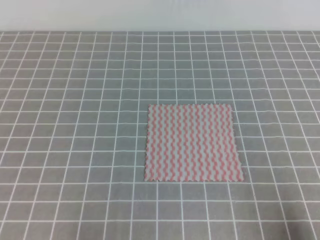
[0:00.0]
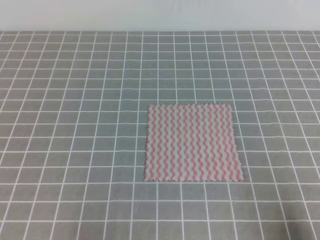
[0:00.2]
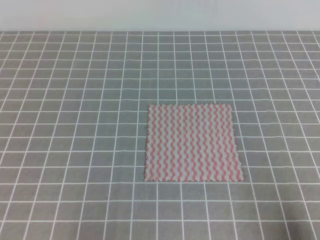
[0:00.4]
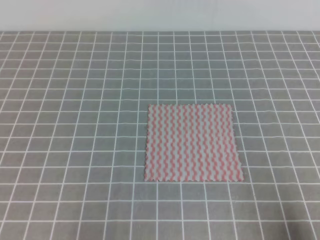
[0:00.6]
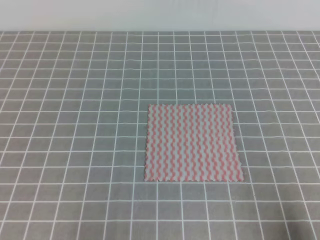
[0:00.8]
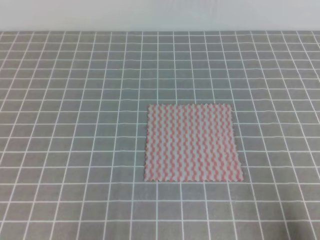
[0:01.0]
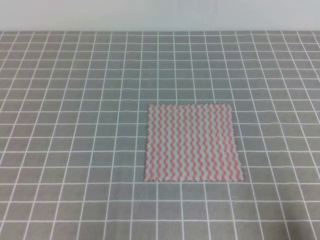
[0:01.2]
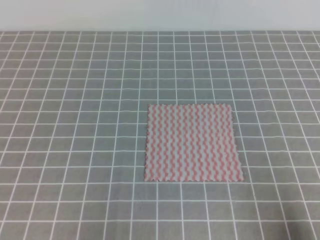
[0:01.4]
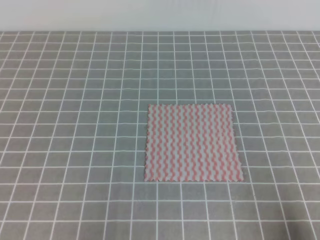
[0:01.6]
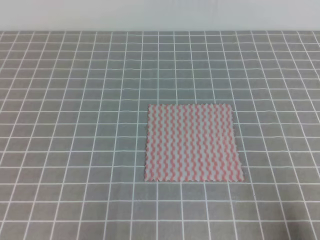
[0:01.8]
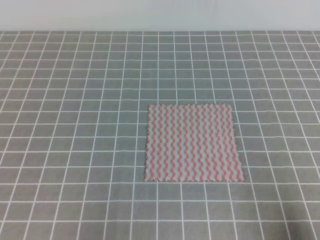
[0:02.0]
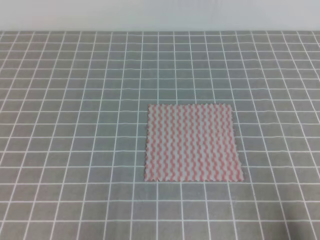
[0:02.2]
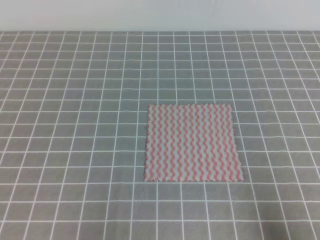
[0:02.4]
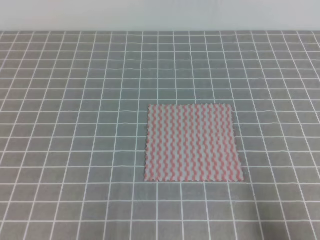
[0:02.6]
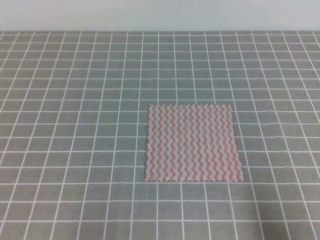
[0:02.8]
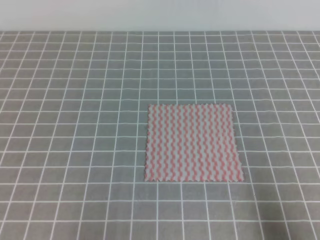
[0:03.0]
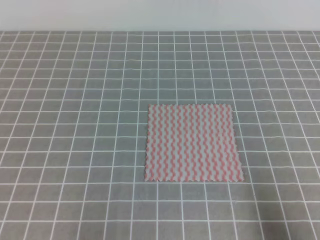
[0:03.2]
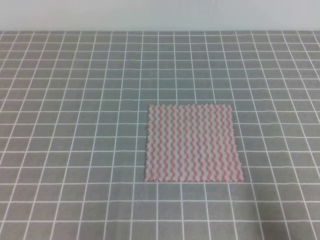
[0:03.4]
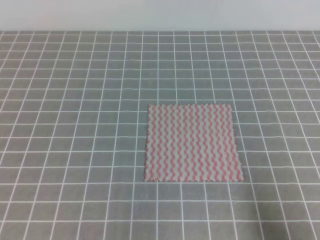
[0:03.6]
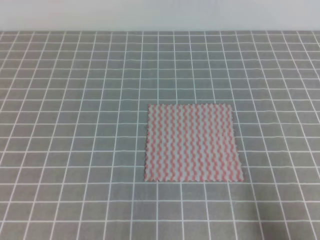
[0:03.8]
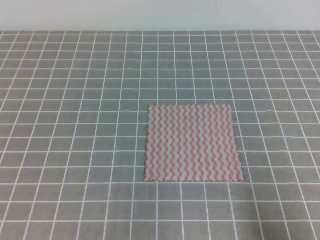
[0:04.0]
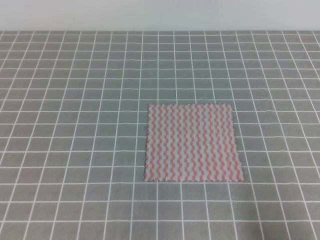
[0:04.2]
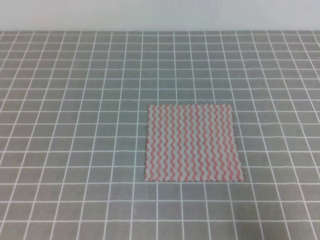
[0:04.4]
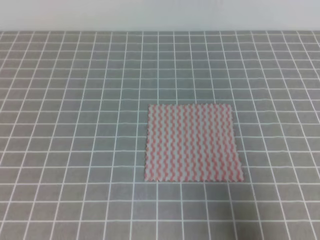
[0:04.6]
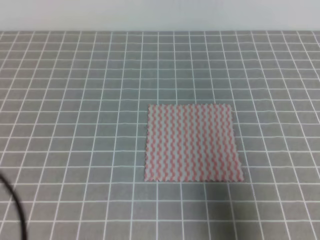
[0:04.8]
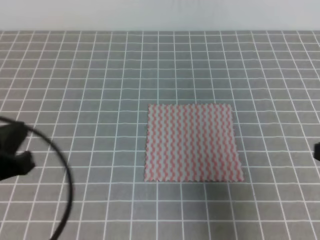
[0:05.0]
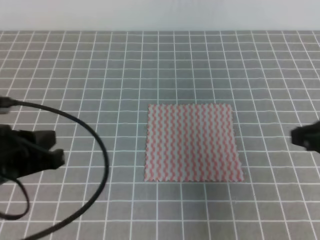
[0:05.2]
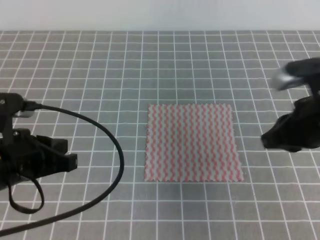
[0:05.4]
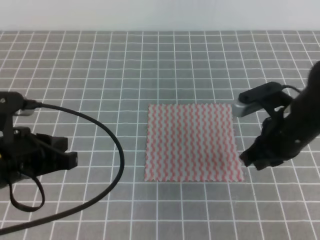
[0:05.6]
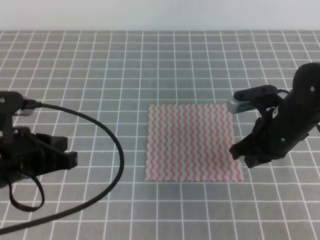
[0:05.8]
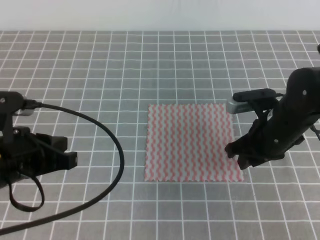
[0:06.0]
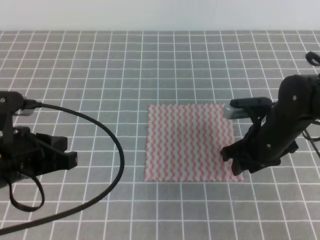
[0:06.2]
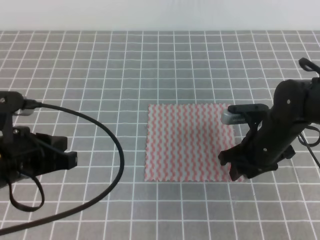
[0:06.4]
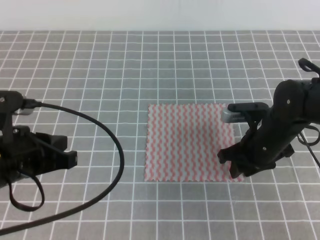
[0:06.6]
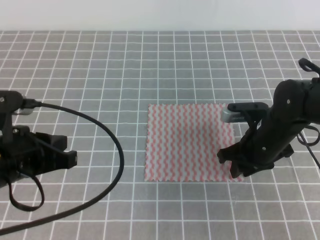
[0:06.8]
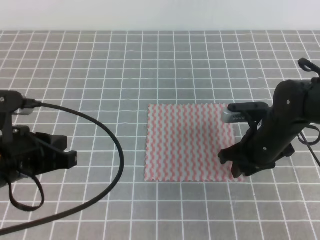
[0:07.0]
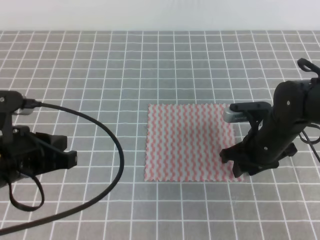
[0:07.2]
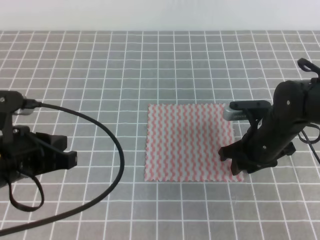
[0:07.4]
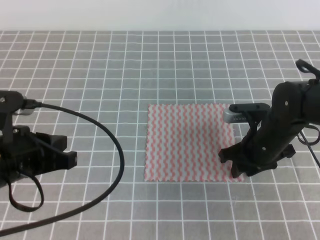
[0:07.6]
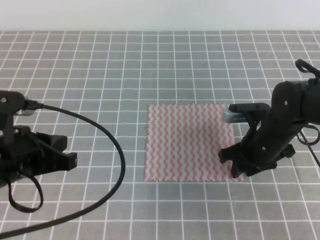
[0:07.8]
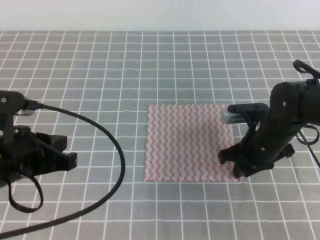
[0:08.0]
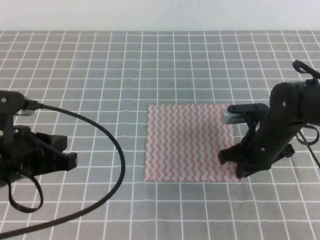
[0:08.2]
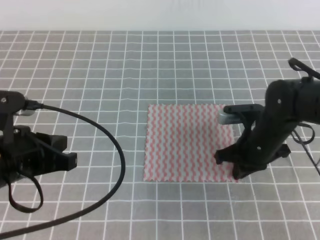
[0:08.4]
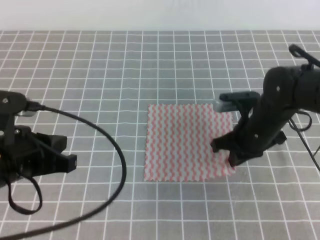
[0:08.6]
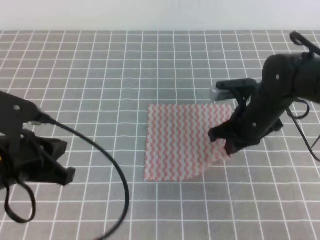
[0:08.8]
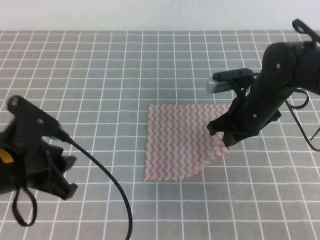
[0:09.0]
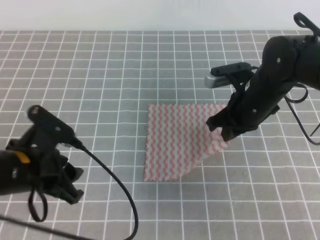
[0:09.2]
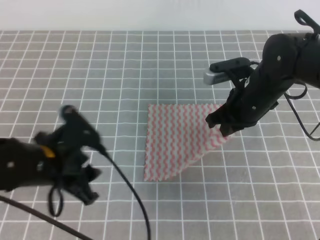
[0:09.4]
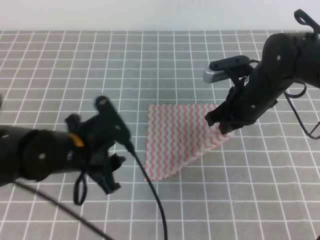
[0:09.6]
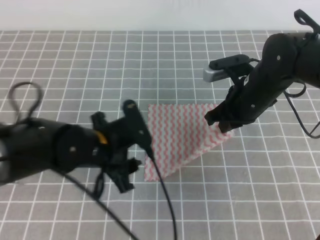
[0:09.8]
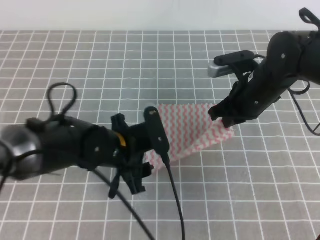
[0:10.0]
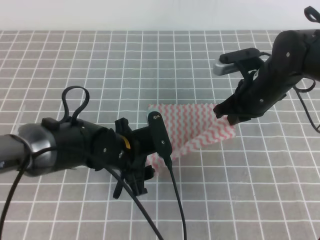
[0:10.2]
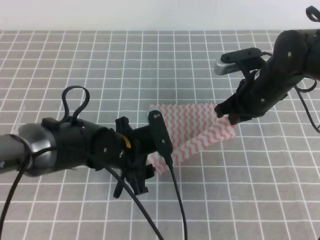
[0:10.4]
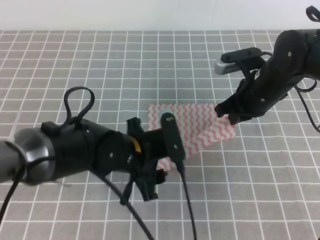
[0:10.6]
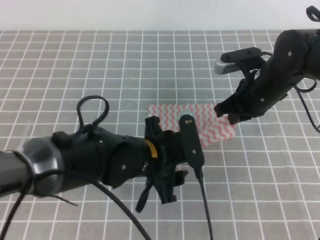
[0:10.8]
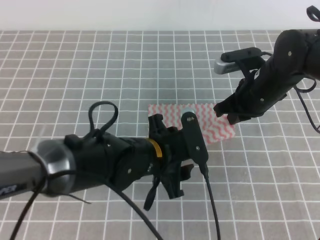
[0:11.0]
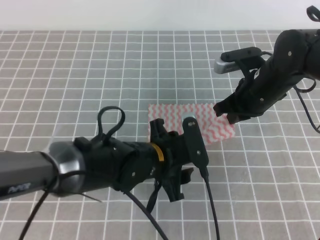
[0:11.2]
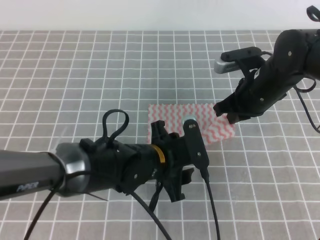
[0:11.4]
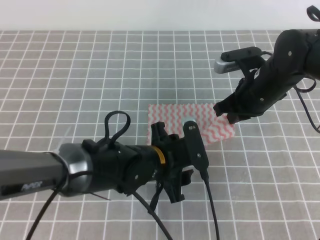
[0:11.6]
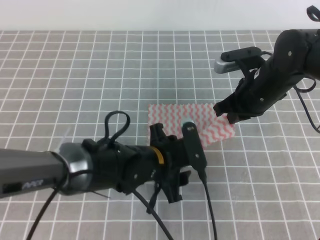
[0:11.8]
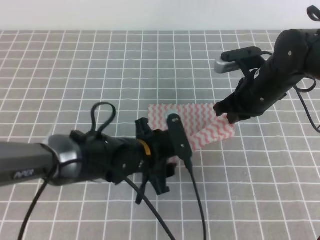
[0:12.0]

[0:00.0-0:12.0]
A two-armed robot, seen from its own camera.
0:04.4 to 0:06.0: The right gripper heads forward and to the left, covering some 25 cm, and opens its fingers. Meanwhile the left gripper moves forward and to the right, approximately 15 cm.
0:06.0 to 0:07.6: The grippers stay close to where they were, moving slightly.
0:07.6 to 0:09.0: The right gripper heads upward, covering approximately 5 cm, and closes its fingers. The left gripper opens its fingers.
0:09.0 to 0:10.4: The left gripper shifts about 15 cm to the right, forward and downward, and opens.
0:10.4 to 0:12.0: The grippers make only small movements.

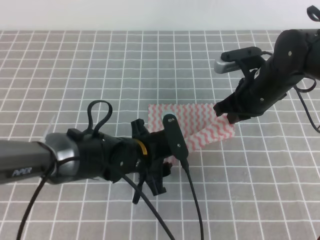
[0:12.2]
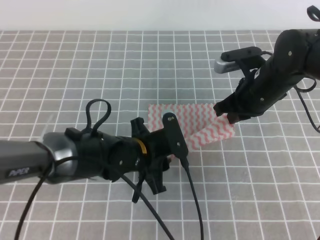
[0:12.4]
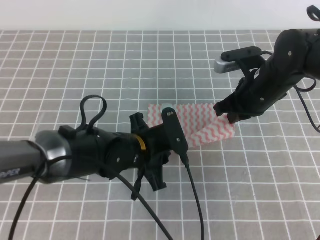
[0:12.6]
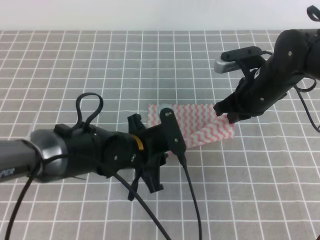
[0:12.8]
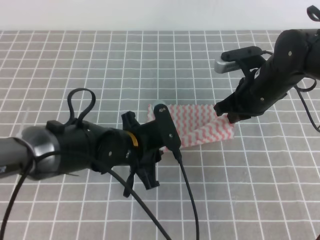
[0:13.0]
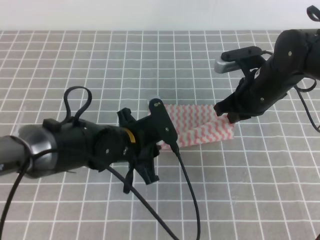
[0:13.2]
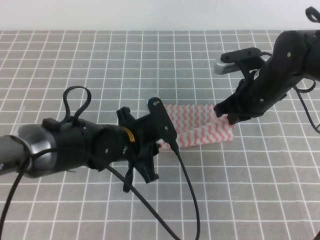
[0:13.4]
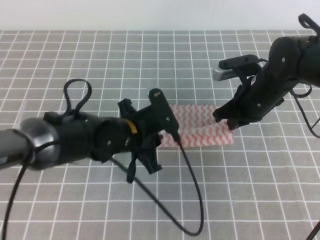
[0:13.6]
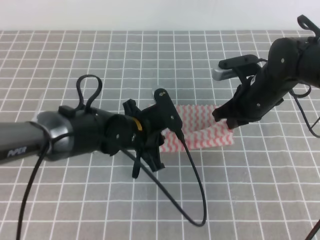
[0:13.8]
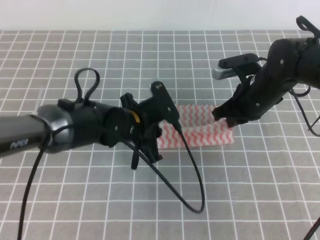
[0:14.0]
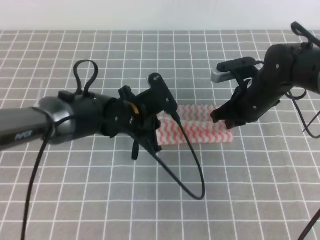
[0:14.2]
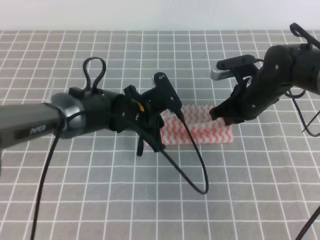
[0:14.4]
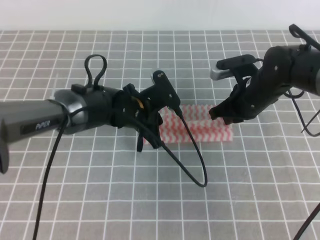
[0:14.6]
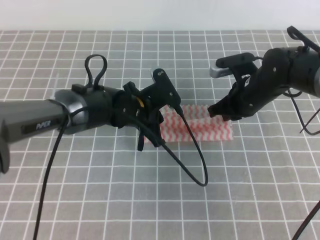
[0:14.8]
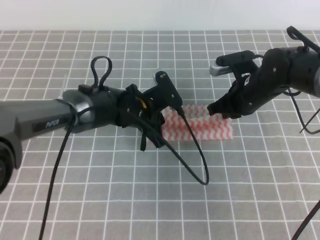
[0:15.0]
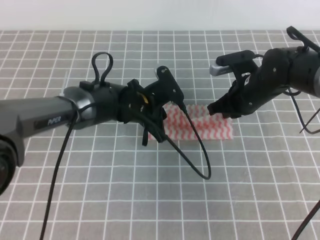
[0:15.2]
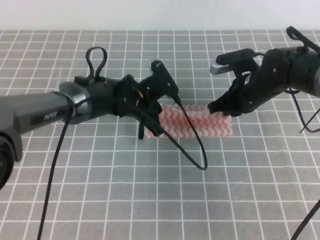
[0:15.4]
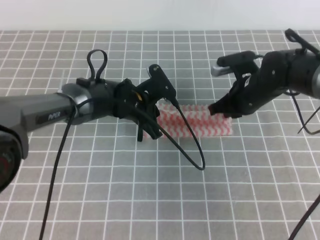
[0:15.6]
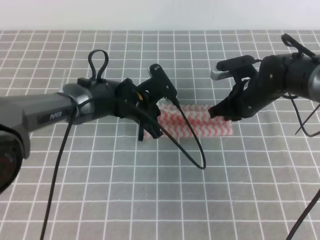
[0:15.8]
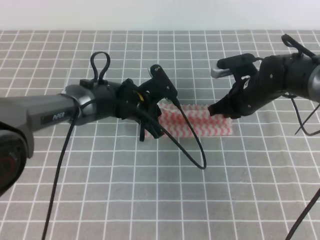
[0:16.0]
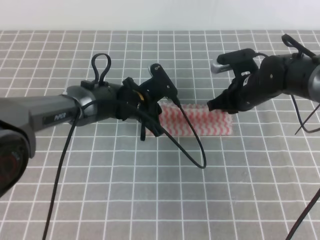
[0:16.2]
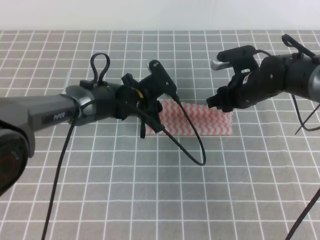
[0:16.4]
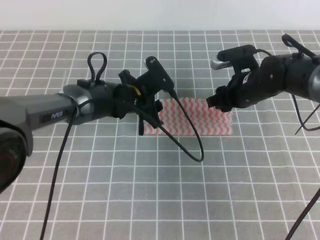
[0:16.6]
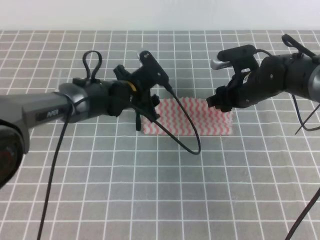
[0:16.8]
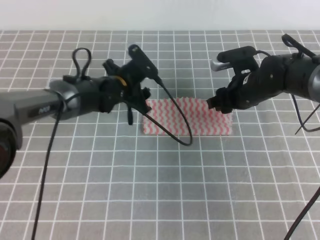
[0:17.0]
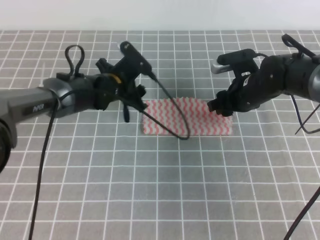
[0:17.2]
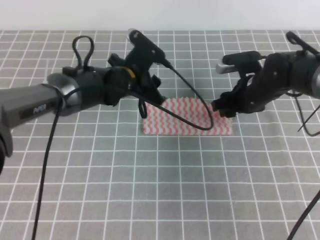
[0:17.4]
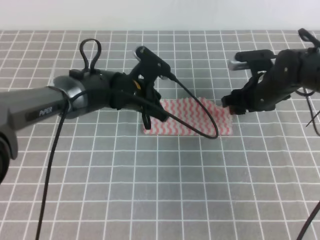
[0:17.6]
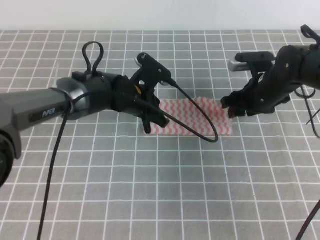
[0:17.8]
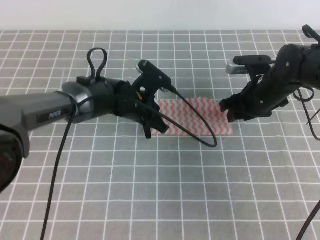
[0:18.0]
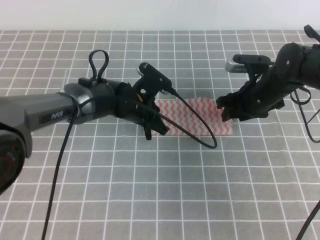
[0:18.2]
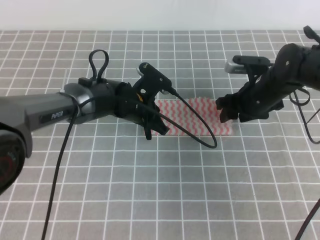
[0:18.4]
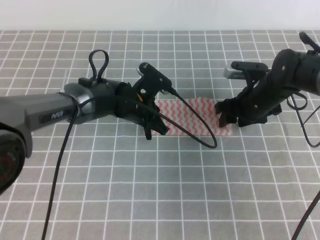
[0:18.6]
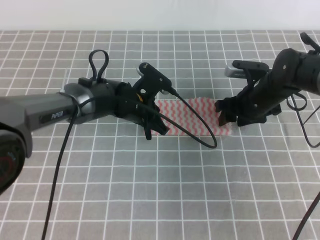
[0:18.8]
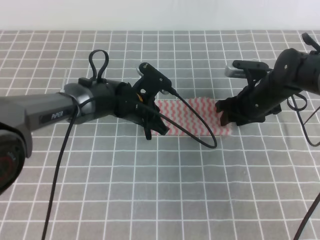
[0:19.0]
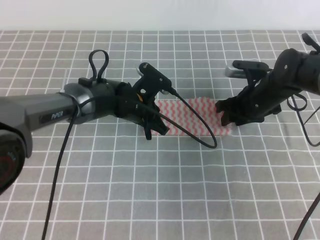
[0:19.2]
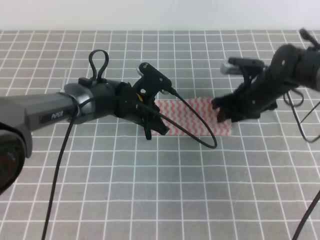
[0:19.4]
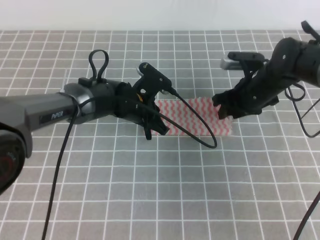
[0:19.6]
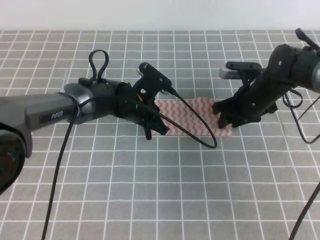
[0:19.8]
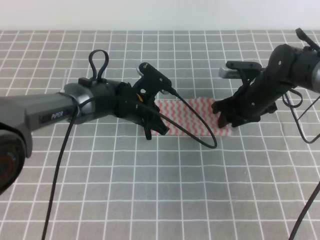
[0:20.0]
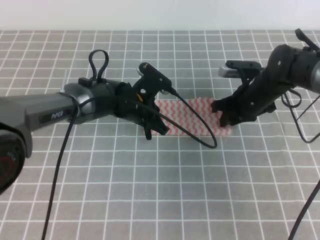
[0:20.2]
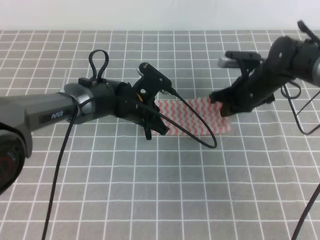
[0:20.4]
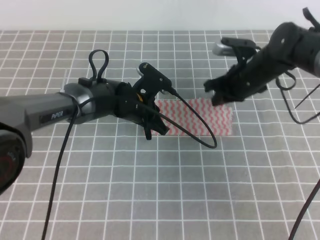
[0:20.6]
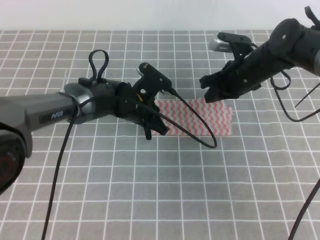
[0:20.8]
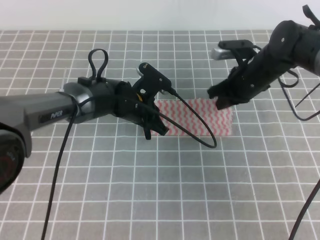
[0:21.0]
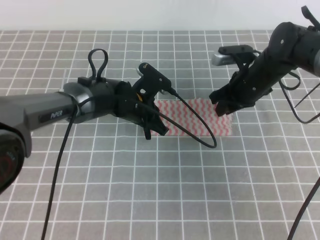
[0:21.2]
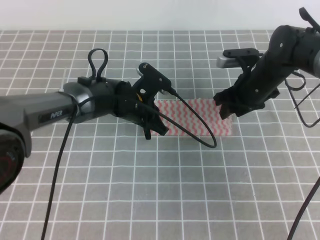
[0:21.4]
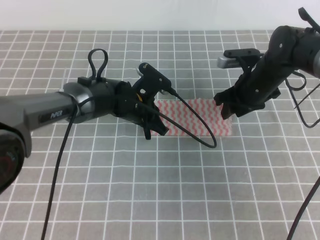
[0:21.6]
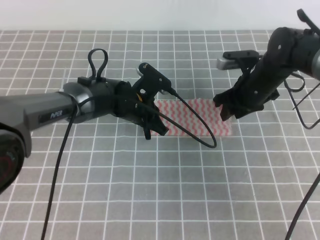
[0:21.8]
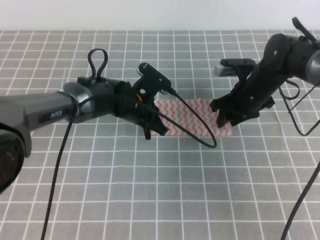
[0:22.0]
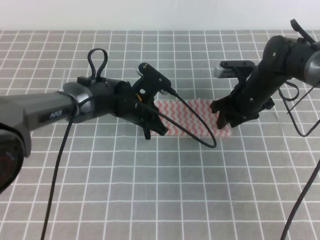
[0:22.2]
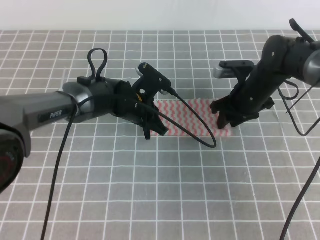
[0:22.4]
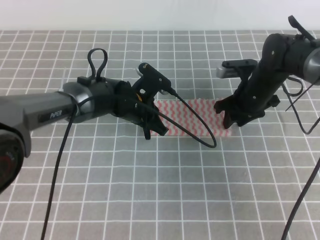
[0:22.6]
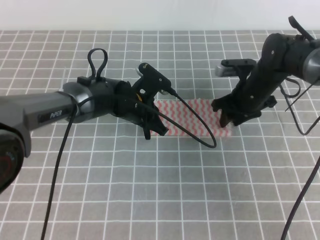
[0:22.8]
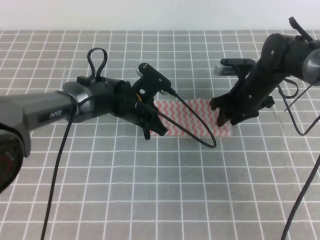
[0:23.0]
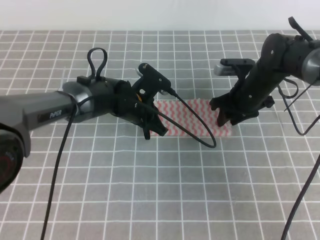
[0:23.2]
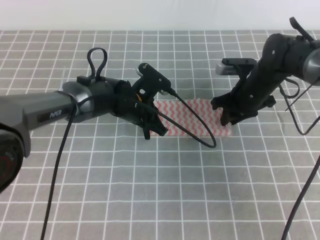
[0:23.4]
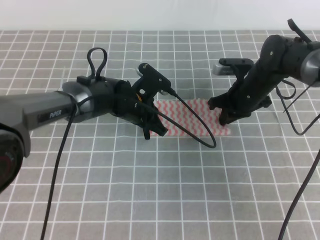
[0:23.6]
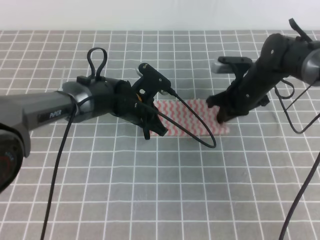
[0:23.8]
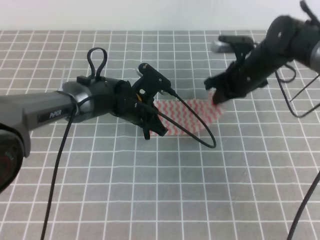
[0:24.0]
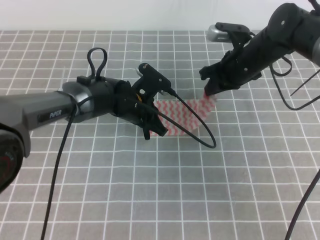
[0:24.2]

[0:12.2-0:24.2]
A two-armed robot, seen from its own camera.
0:12.2 to 0:13.8: The left gripper closes its fingers.
0:13.8 to 0:15.2: The left gripper heads forward, covering some 5 cm.
0:15.2 to 0:16.6: The left gripper opens its fingers. The right gripper opens its fingers.
0:16.6 to 0:18.2: The left gripper closes up.
0:18.2 to 0:19.8: The grippers stay close to where they were, moving slightly.
0:19.8 to 0:21.2: The right gripper closes up.
0:21.2 to 0:22.6: The right gripper opens.
0:22.6 to 0:24.2: The right gripper goes roughly 5 cm upward, and closes.
